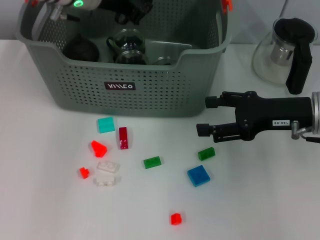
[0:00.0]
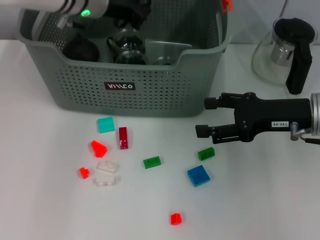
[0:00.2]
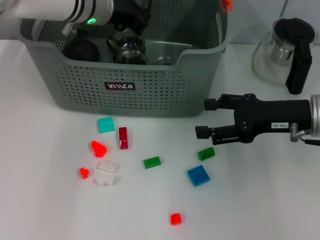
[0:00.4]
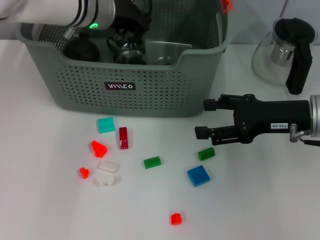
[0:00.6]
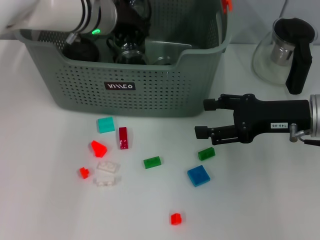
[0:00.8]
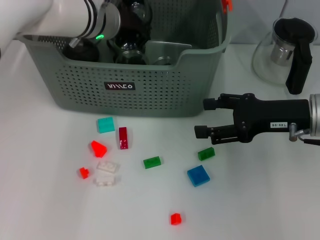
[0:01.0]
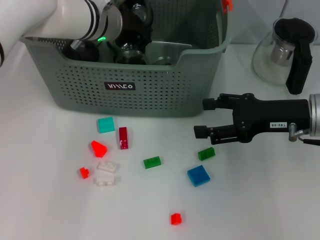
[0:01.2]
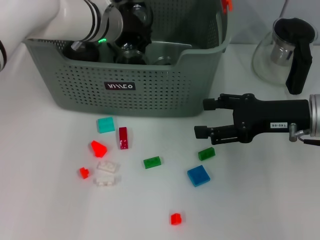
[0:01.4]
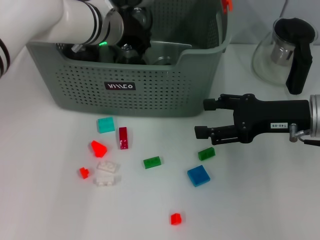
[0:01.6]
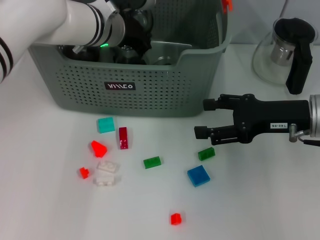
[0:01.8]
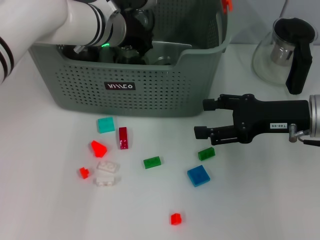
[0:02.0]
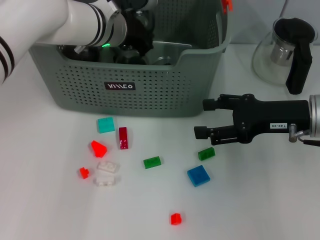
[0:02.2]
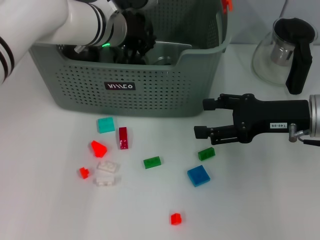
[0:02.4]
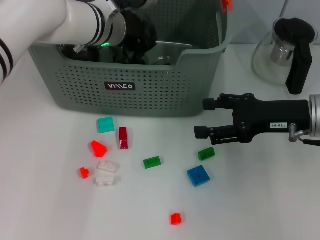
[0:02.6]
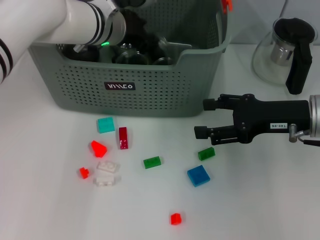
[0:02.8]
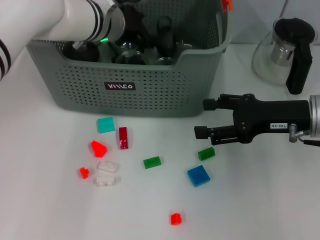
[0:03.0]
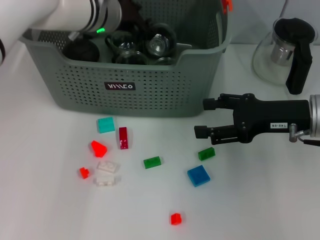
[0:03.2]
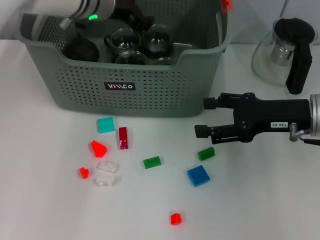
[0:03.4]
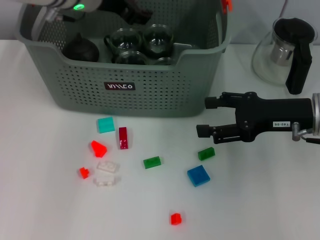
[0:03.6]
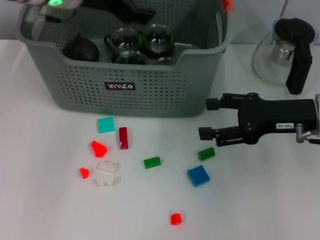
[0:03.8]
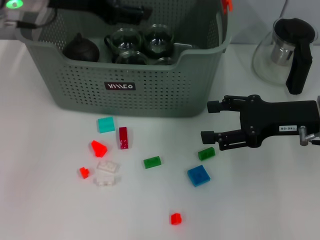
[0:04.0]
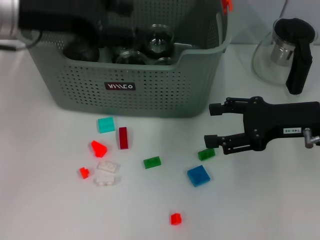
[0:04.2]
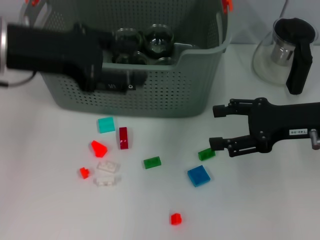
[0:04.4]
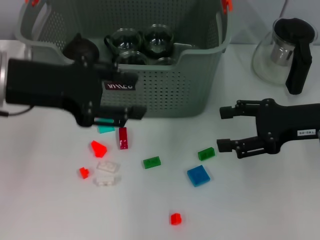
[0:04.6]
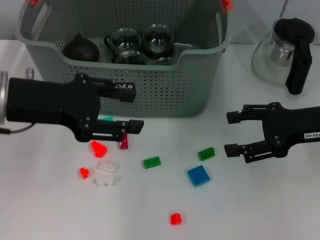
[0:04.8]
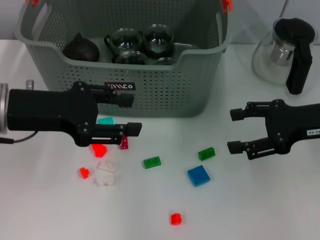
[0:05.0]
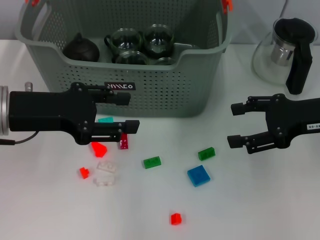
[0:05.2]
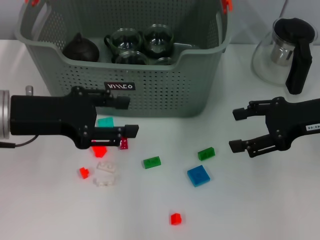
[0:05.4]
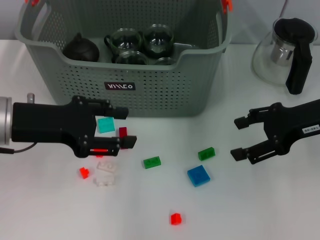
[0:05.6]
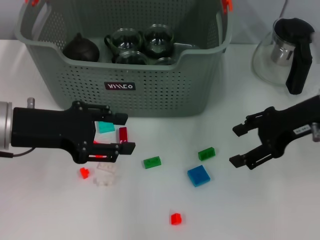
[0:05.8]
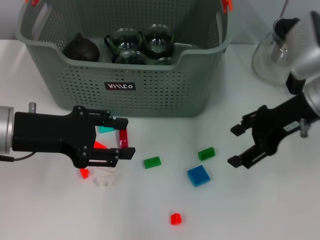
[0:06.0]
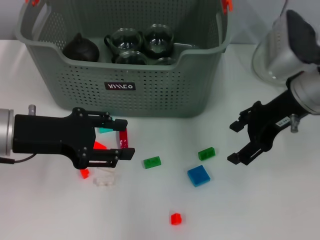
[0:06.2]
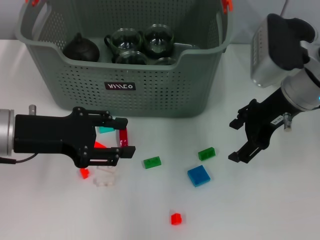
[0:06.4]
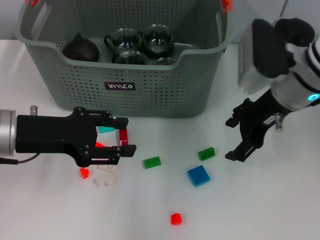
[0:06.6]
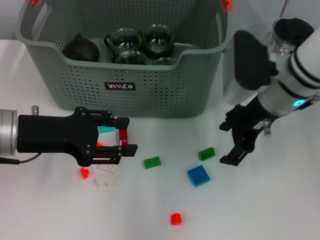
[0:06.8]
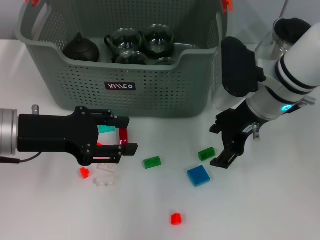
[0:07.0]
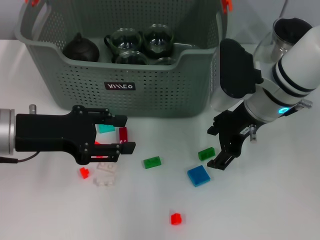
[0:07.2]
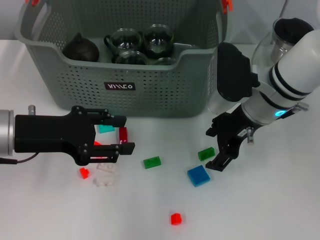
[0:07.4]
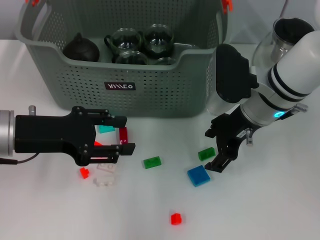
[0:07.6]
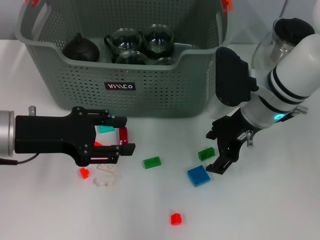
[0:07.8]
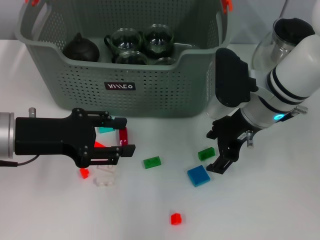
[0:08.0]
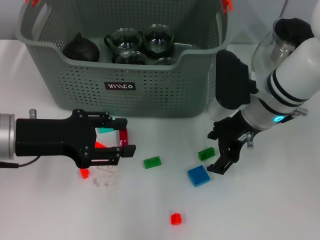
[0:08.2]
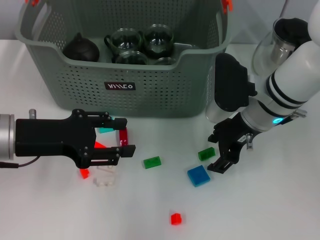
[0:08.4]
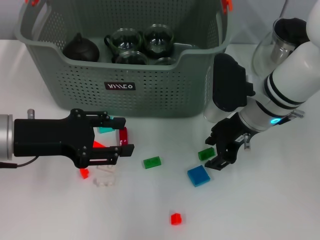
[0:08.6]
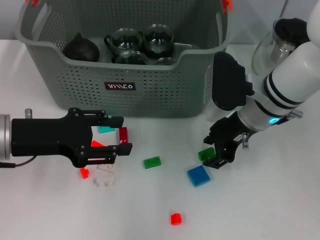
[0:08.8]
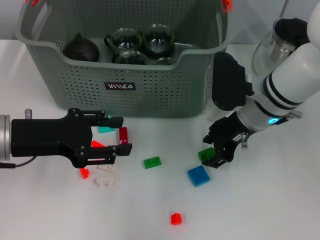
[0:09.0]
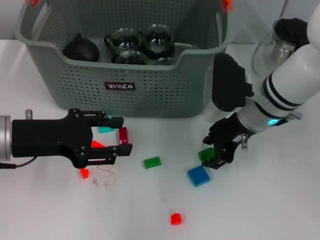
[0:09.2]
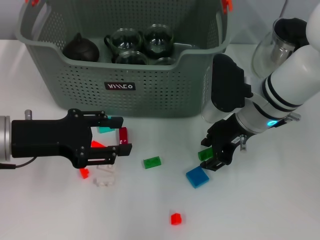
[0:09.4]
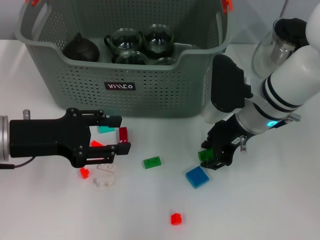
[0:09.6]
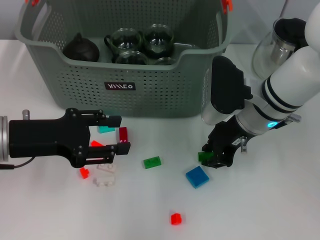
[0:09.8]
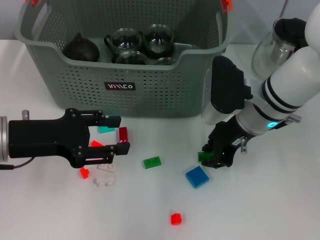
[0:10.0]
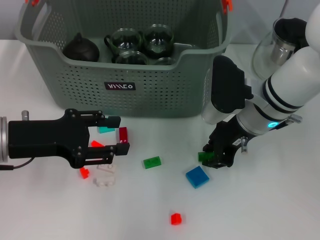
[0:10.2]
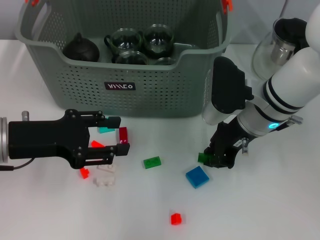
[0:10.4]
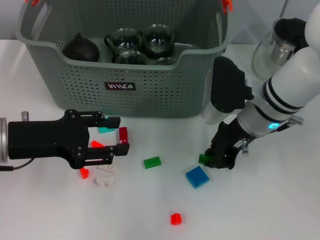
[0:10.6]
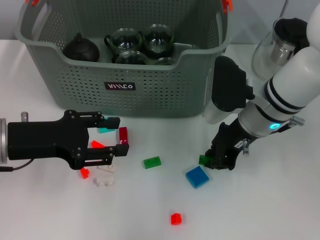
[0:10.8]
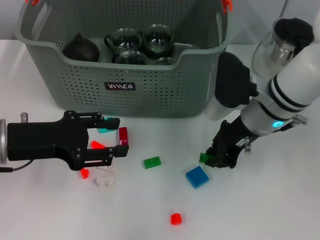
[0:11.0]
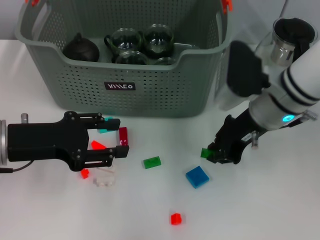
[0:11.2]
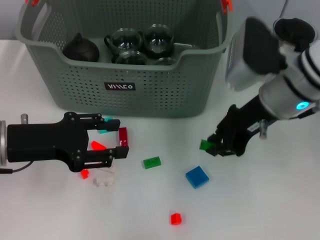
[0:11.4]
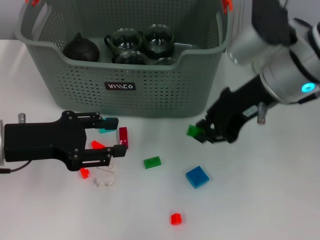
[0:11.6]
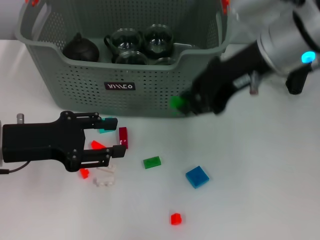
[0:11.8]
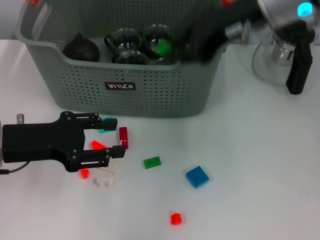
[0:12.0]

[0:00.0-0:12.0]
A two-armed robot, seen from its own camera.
Task of the whole recording: pick up the teacup on the table and place it into the storage bin, pick up the block on the table and place it into the storage bin.
Step, 0.0 to 2.6 s: Place the cup in the storage box with left gripper.
Step, 3.0 to 10.8 s: Grasp the green block with right gripper.
0.0 to 1.6 s: The left gripper shifts about 5 cm downward.
1.6 to 3.0 s: The left gripper opens its fingers.
3.0 to 4.4 s: The left gripper shifts approximately 20 cm backward, to the left and upward.
4.4 to 6.0 s: The left gripper goes some 10 cm downward. The right gripper changes place by some 5 cm.
6.0 to 7.6 s: The right gripper is displaced to the left by roughly 10 cm.
7.6 to 9.0 s: The right gripper closes.
9.0 to 10.4 s: The right gripper closes up.
10.4 to 12.0 s: The right gripper shifts some 20 cm upward.

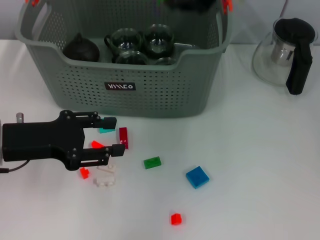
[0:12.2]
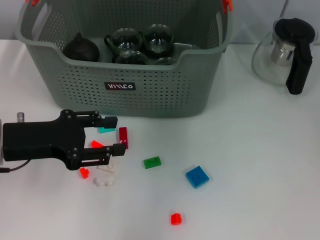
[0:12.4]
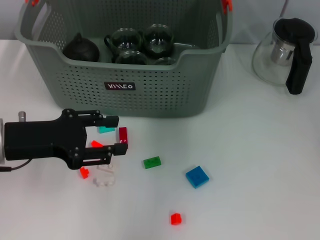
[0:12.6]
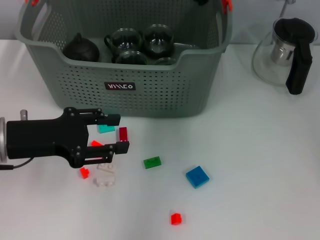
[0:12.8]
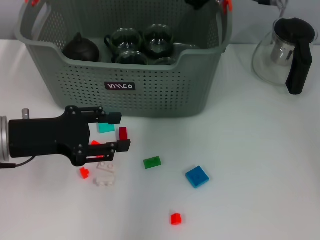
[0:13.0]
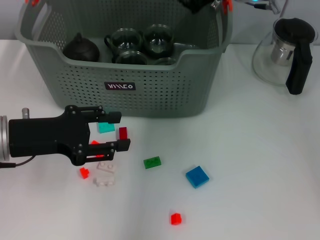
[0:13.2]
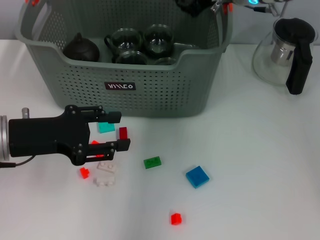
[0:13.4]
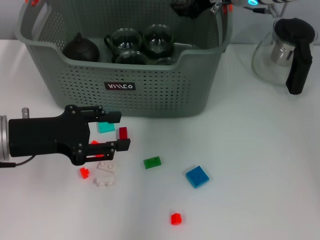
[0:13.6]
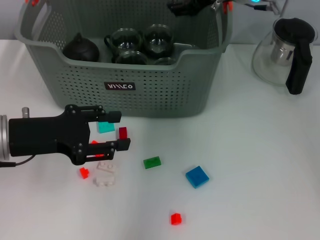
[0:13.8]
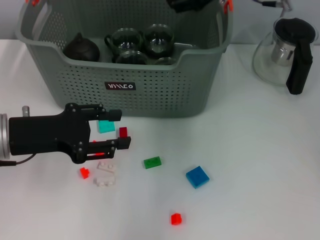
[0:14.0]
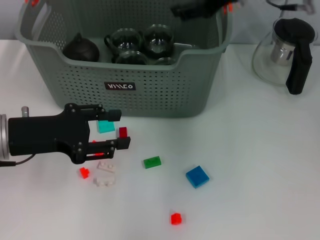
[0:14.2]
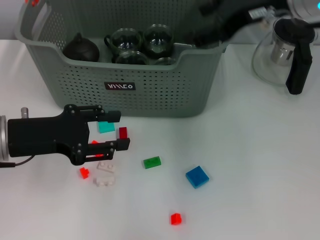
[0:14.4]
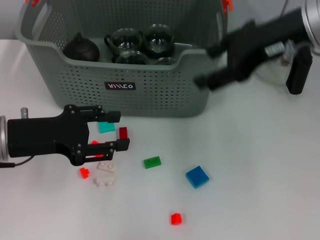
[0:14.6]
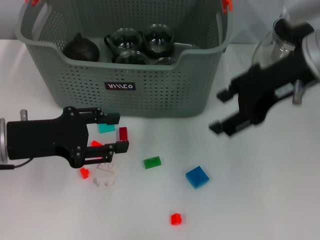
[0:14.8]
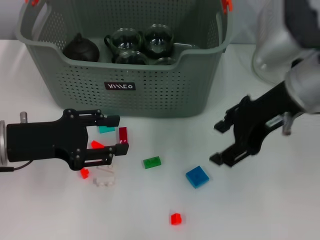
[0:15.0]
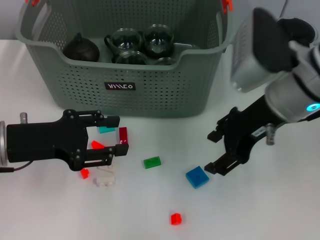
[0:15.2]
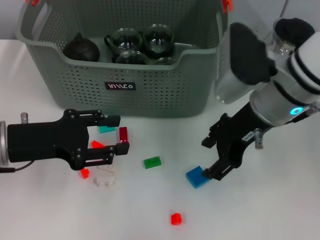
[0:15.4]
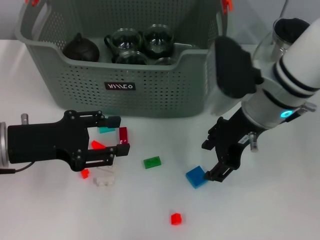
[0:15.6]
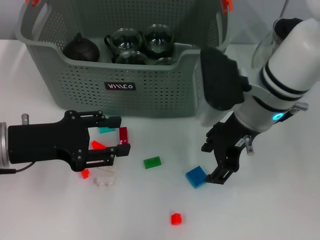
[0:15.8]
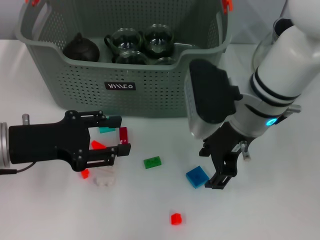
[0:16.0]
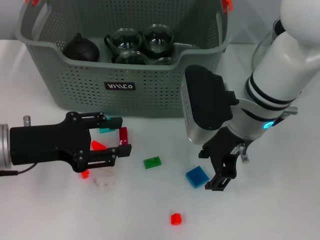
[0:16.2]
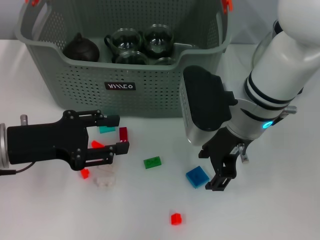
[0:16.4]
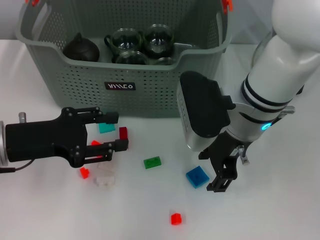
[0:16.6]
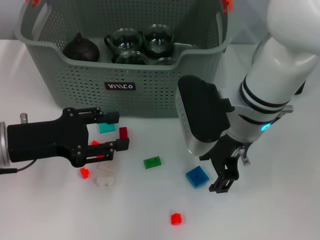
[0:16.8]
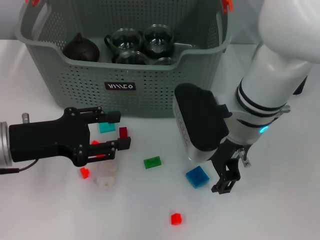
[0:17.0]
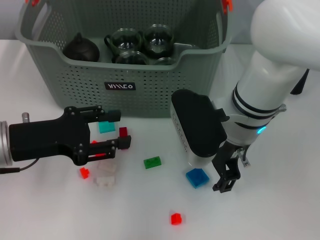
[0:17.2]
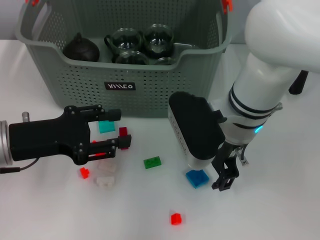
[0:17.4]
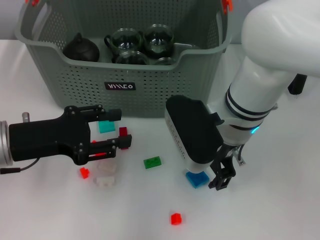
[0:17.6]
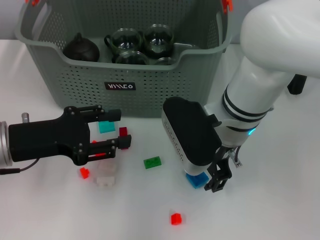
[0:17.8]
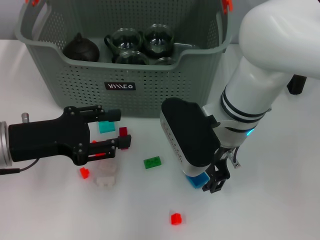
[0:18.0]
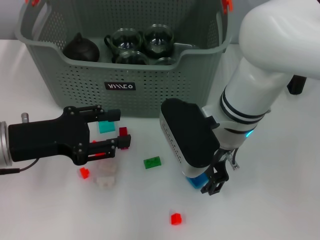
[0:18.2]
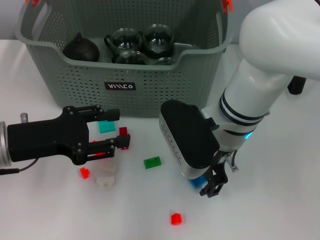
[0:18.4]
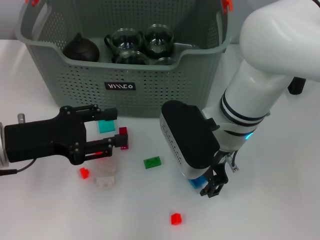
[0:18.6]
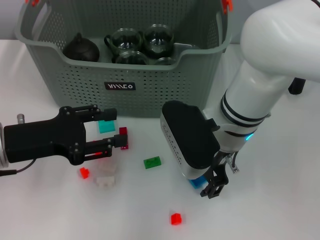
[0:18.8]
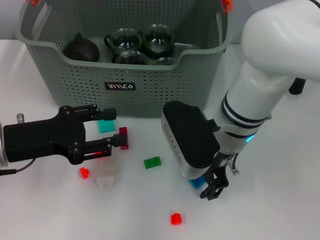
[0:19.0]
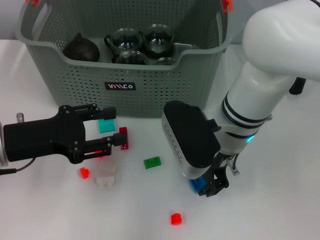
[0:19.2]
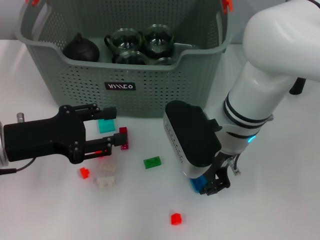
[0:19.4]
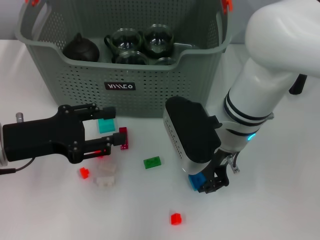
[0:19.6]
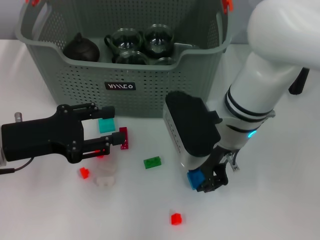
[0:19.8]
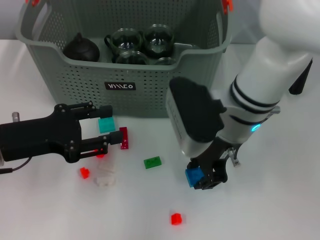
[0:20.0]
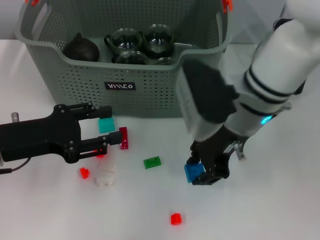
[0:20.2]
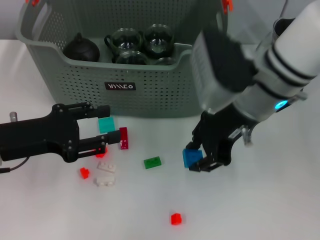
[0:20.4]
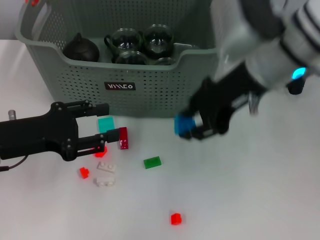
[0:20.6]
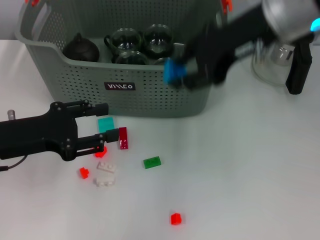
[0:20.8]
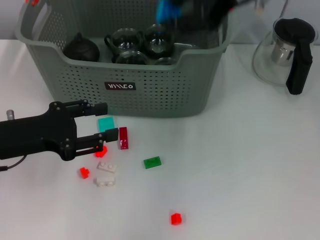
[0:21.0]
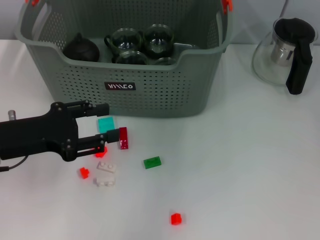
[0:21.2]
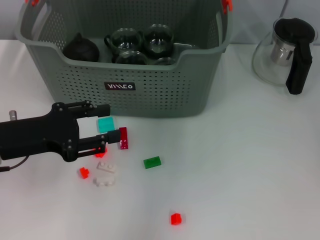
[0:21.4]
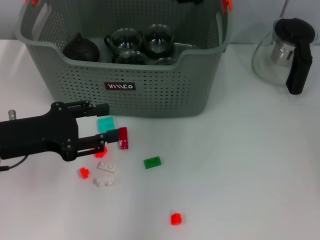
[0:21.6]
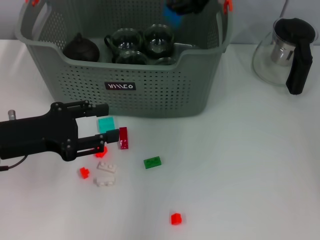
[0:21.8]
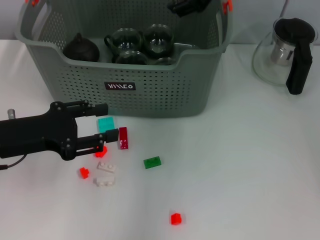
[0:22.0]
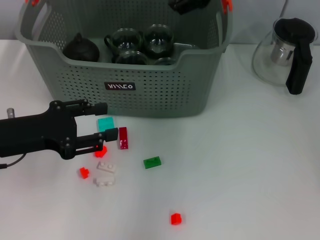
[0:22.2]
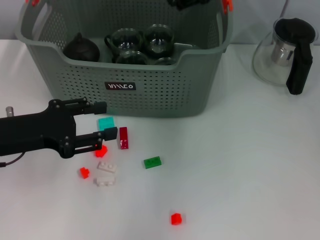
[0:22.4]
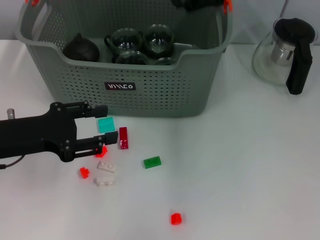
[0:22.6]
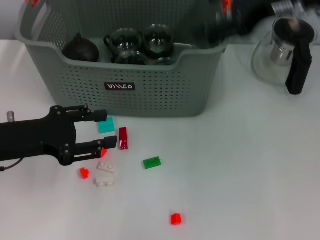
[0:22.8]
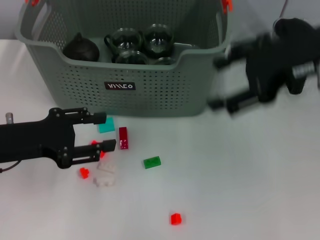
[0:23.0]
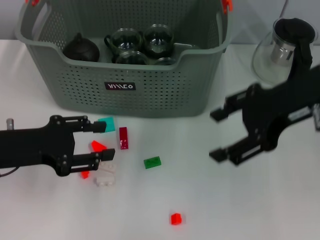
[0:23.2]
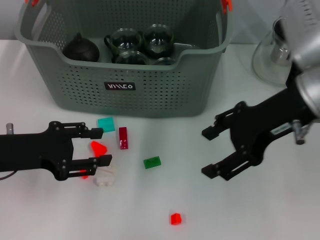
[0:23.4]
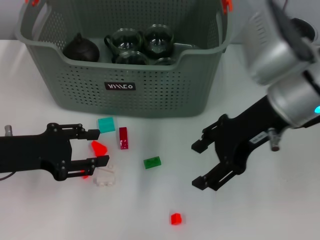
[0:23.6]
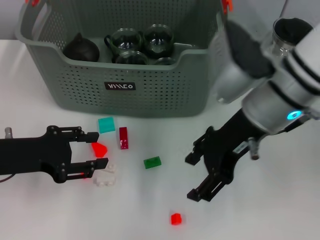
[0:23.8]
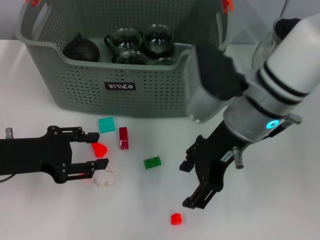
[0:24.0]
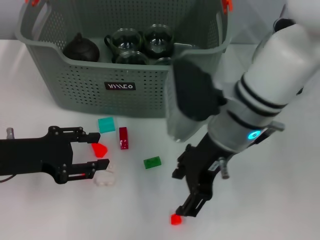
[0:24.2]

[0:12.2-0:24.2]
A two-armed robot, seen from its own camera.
Task of the whole recording: pick up the teacup on the table and place it into the storage bin, pick up the block on the table and place it into the storage bin.
Step, 12.2 to 13.6 s: Place the green block in the storage box with right gripper.
Step, 13.8 to 19.2 s: Grasp the dark blue block with right gripper.
Step, 19.4 to 21.8 s: Place the dark blue block in the storage box with right gripper.
12.2 to 13.8 s: The right gripper goes approximately 10 cm downward and forward.
13.8 to 15.2 s: The right gripper travels backward by approximately 15 cm.
15.2 to 16.6 s: The right gripper is displaced to the left by some 5 cm.
16.6 to 18.2 s: There are only small adjustments of the grippers.
18.2 to 19.8 s: The right gripper closes.
19.8 to 21.2 s: The right gripper goes about 20 cm upward.
21.2 to 22.6 s: The right gripper opens its fingers.
22.6 to 24.2 s: The right gripper moves downward, backward and to the left, approximately 15 cm.
